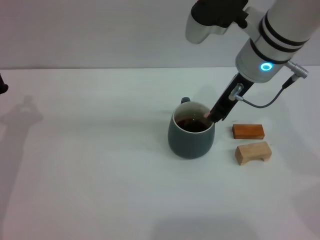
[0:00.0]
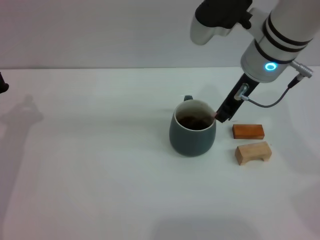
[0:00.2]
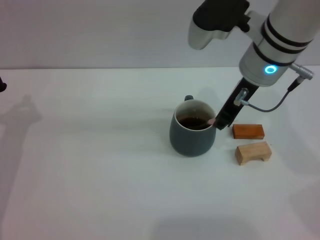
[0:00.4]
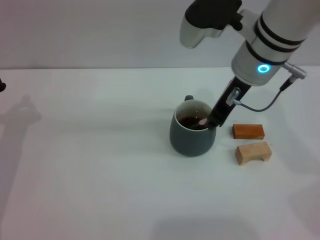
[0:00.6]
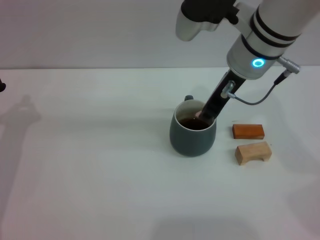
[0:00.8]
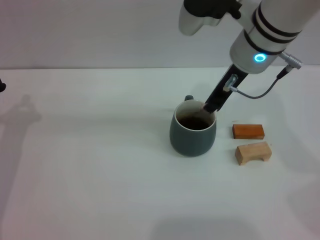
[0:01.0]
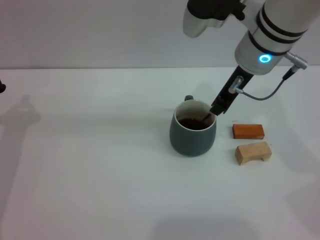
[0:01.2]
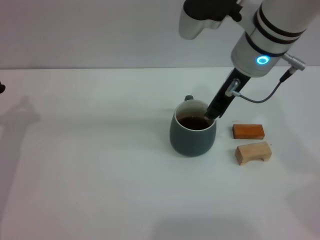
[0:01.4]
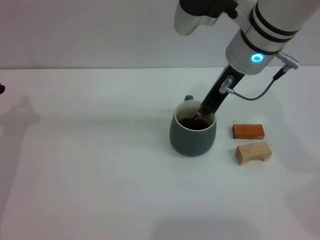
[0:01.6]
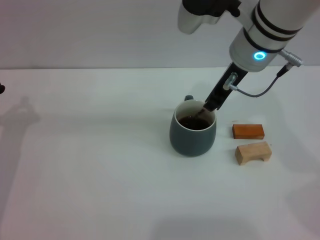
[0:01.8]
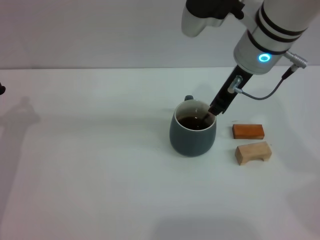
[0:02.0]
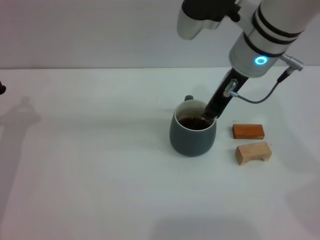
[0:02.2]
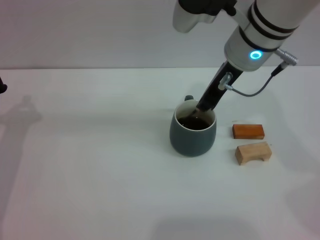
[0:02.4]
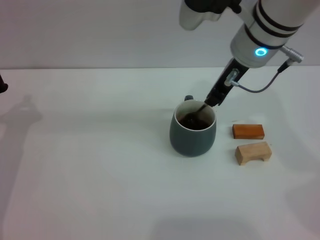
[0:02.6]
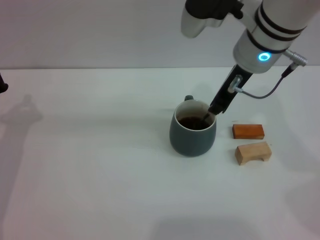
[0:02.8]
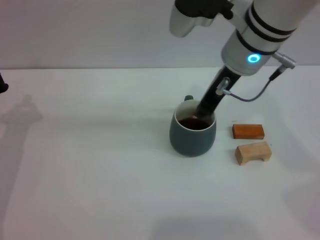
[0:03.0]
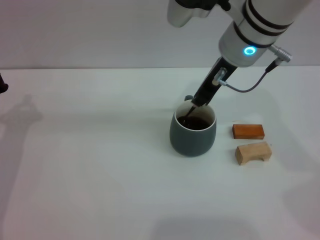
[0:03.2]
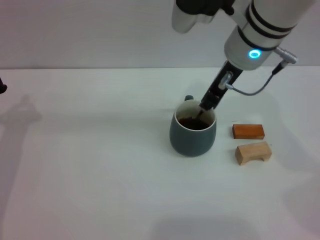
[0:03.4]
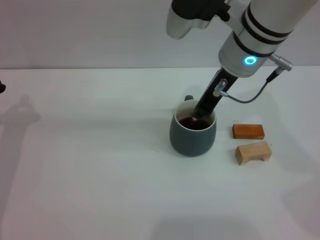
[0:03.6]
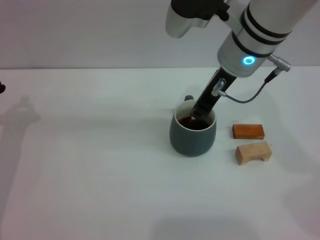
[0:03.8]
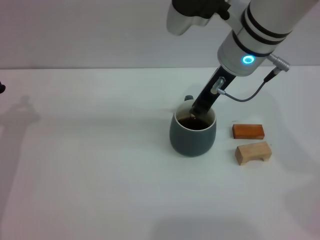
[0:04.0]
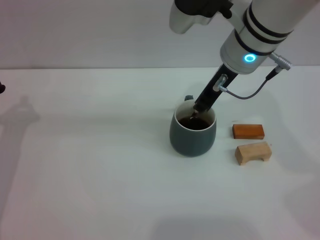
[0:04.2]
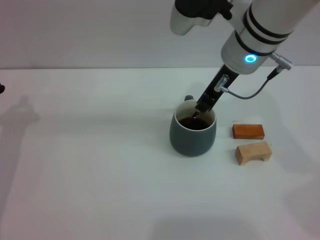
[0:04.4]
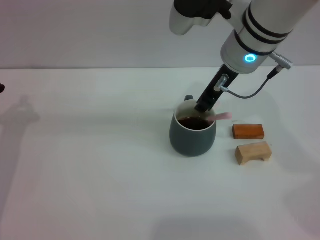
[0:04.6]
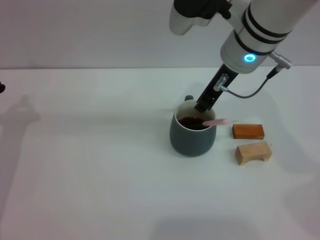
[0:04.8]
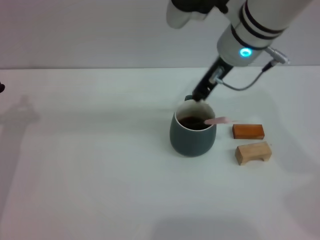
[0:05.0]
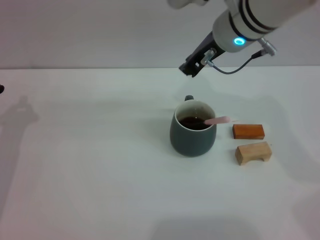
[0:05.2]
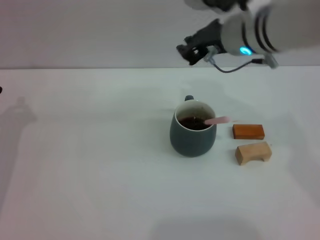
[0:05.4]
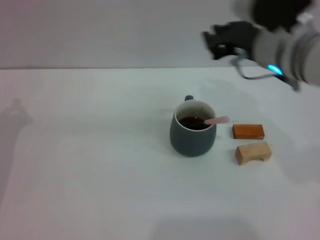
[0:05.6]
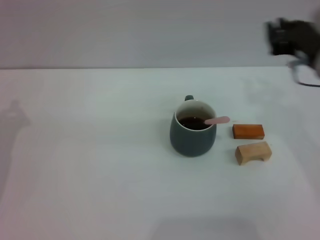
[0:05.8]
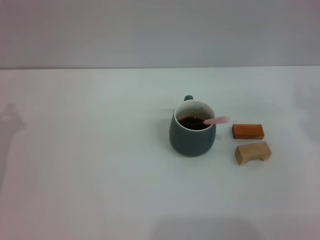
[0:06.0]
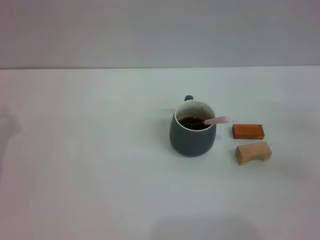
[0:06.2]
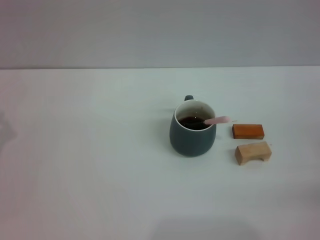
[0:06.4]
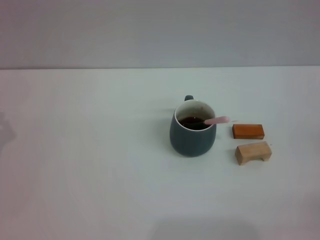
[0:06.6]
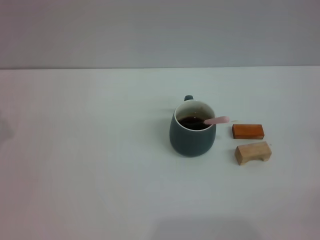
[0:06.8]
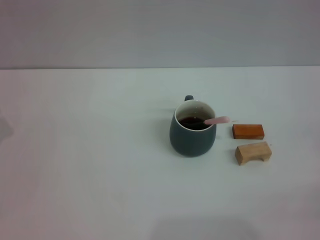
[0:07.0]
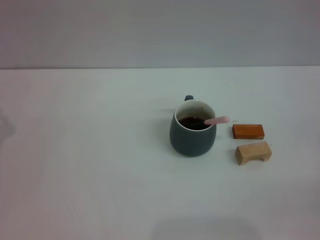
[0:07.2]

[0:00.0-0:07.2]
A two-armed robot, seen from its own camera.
Task of the whole recording: Move the grey cup to the center, lift the pink spoon, stir it three times in the cup, and put the spoon into the cup.
Step, 0:00.0 to 0:05.4: Stir the coffee in the cup with the right gripper.
0:00.0 to 0:01.4: Both grippers stay put.
0:01.4 to 0:02.8: Neither gripper changes place.
0:02.8 to 0:04.4: The grippers move only a little.
0:04.4 to 0:05.8: The right gripper is displaced to the right and backward by about 15 cm.
0:05.8 to 0:07.2: The right gripper moves to the right, downward and backward, approximately 25 cm.
